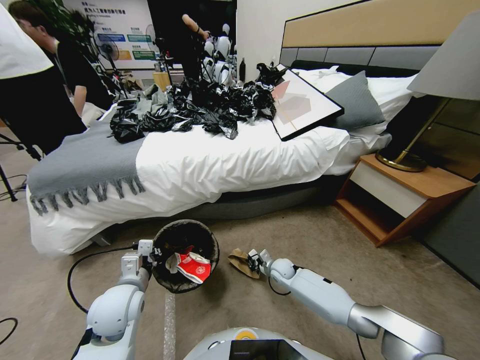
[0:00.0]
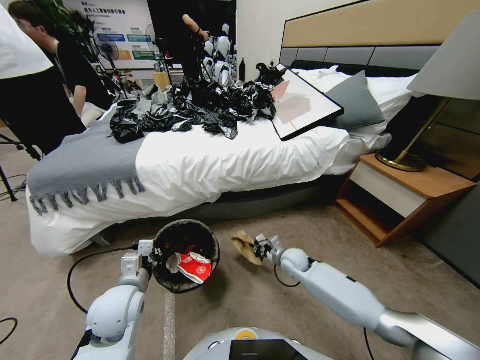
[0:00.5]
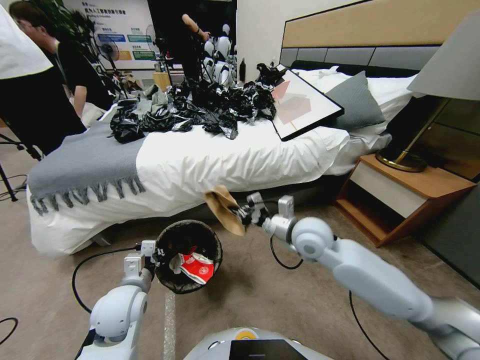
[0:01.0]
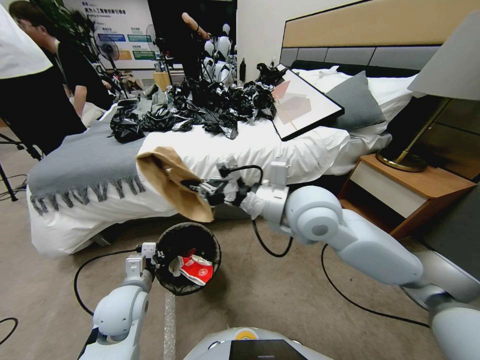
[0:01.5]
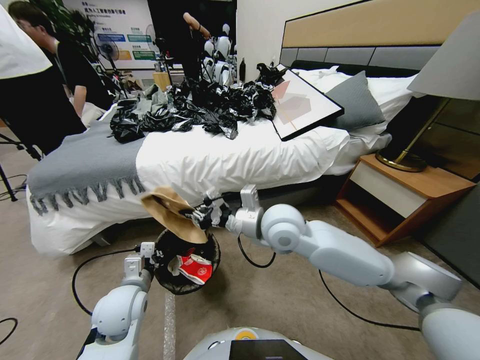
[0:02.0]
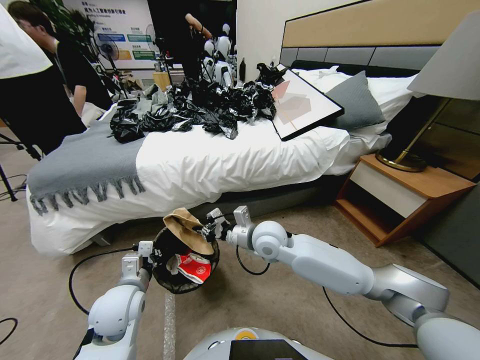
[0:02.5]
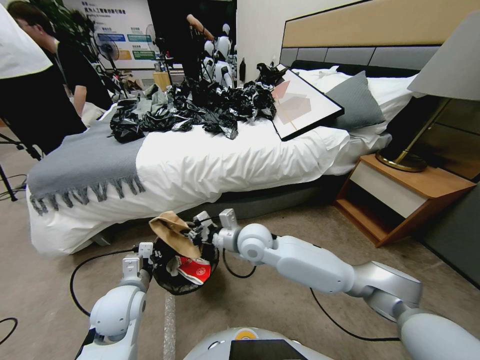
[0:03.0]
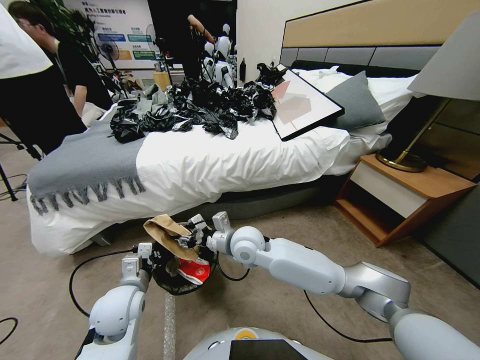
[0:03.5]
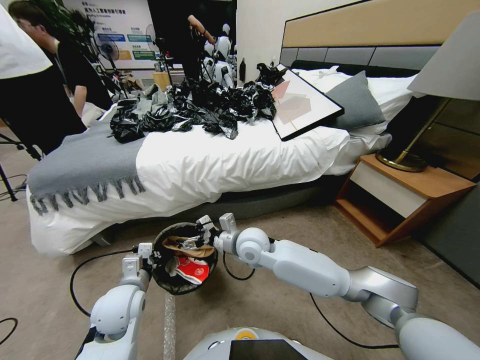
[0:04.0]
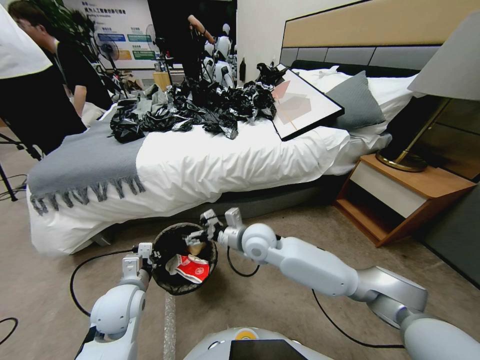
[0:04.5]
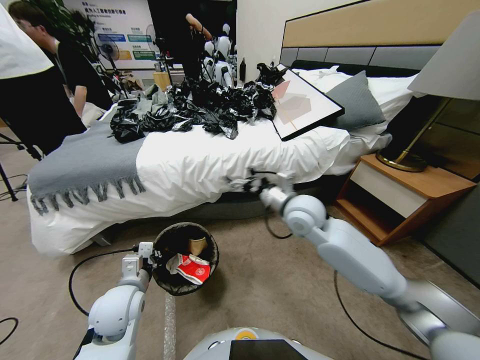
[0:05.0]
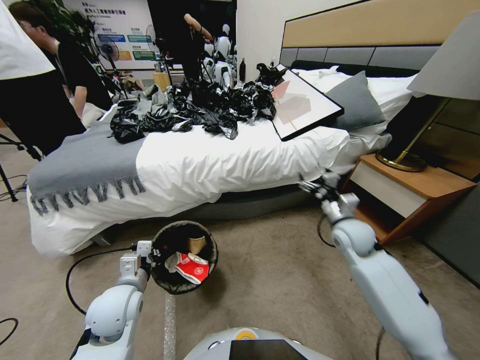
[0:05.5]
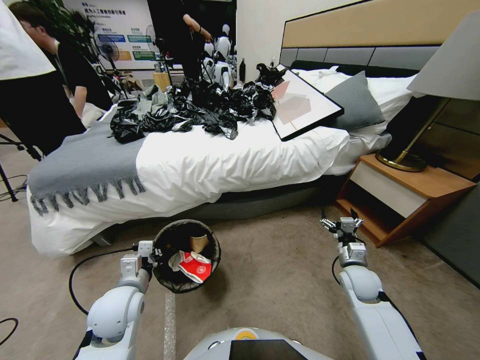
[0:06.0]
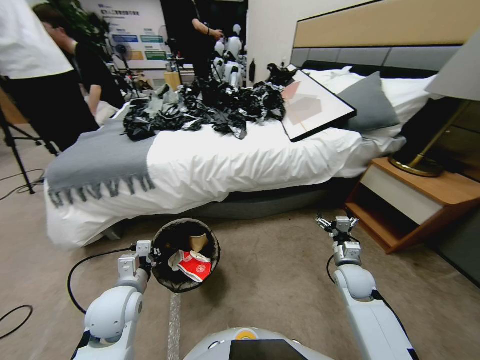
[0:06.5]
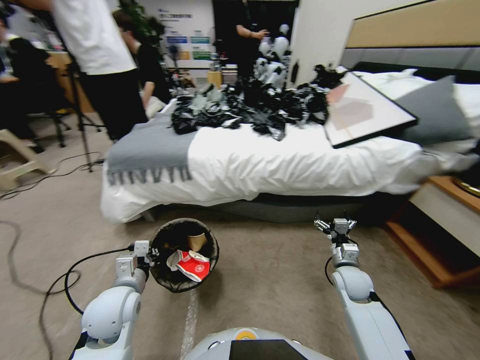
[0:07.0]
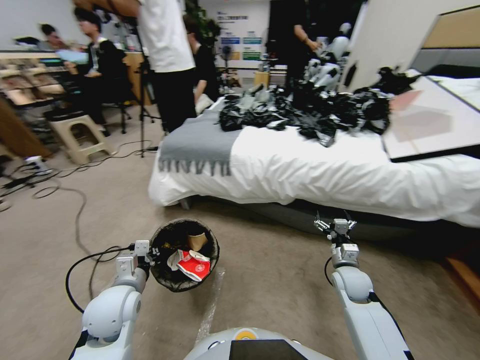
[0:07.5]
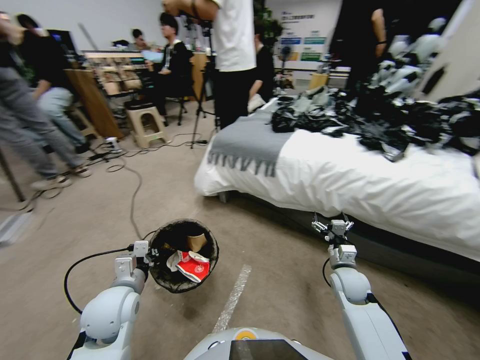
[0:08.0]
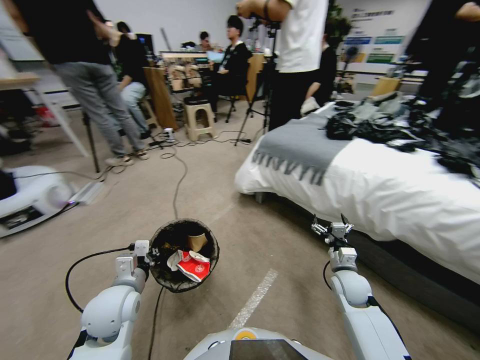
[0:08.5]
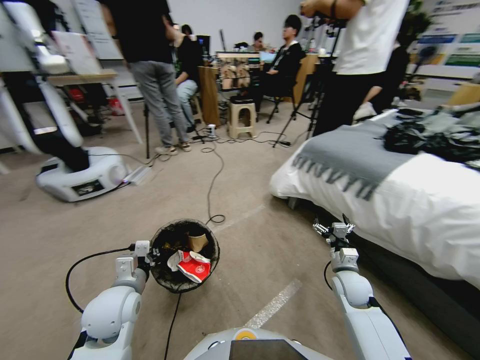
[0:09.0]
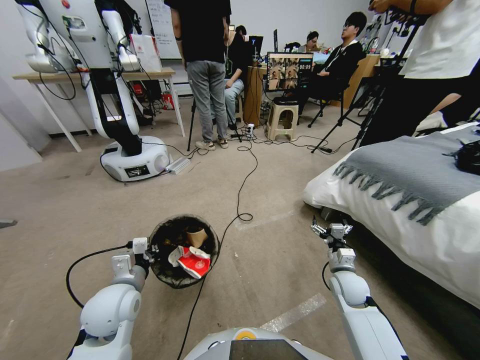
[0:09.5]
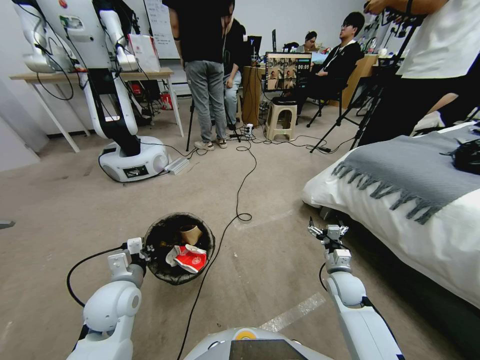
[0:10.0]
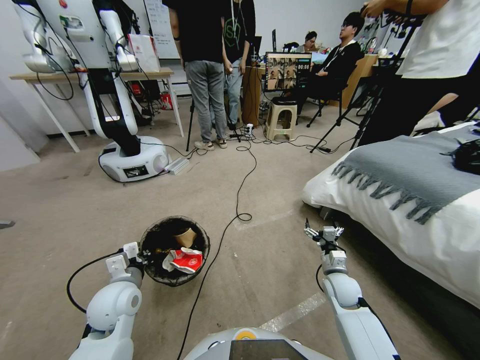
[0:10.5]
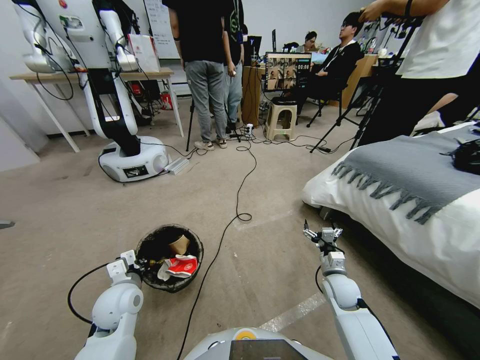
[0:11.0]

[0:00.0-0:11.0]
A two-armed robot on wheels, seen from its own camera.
Task of the whole recording: Pick up the trash bin, then pick up the garbage from the floor and place it into the trash bin.
0:00.0 to 0:02.0: The right gripper is displaced upward by approximately 30 cm.
0:02.0 to 0:03.5: The right gripper shifts about 10 cm downward and to the left, and opens up.
0:03.5 to 0:05.5: The right gripper goes some 30 cm to the right, and opens.
0:05.5 to 0:07.5: The right gripper is displaced downward and backward by approximately 10 cm.
0:09.0 to 0:11.0: The left gripper changes place by about 5 cm.

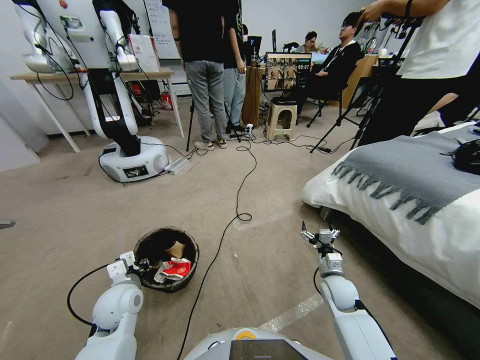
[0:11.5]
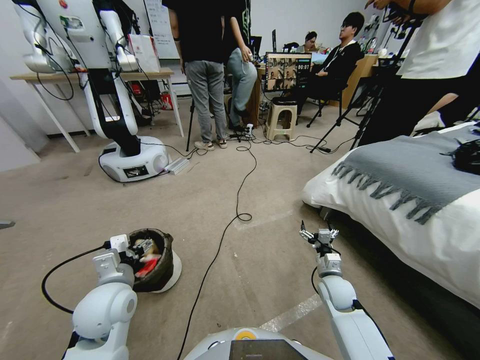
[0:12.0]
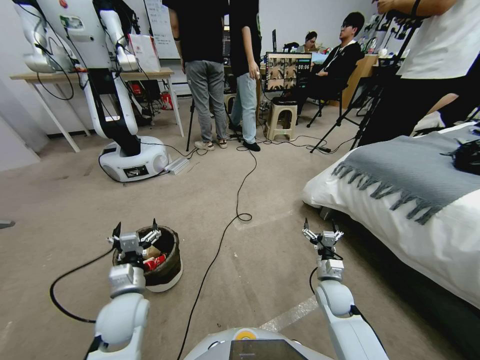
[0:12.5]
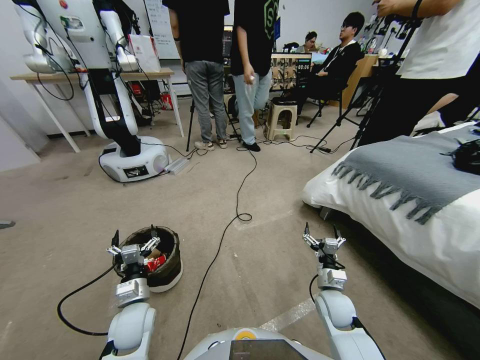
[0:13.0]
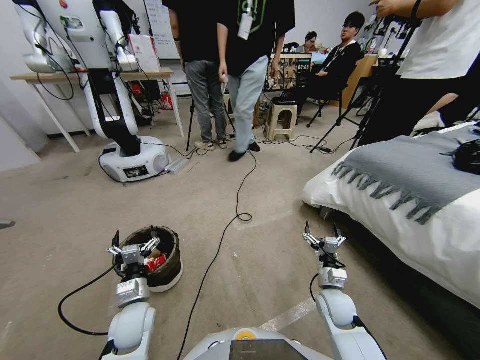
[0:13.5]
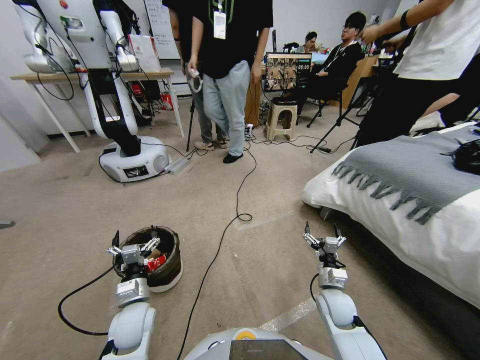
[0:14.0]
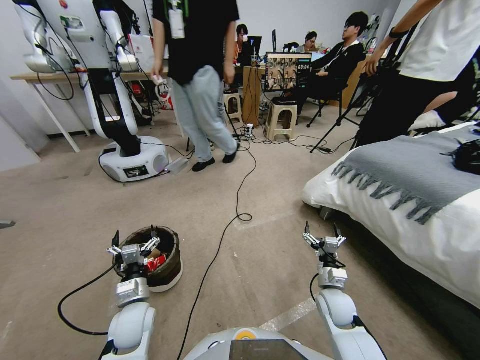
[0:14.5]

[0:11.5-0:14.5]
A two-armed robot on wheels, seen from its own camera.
Task of the whole recording: Pick up the trash bin, then pick up the garbage from the floor and place it into the trash bin.
0:11.5 to 0:13.0: The left gripper travels downward by some 5 cm, and opens up.
0:13.0 to 0:14.5: Neither gripper changes place.
